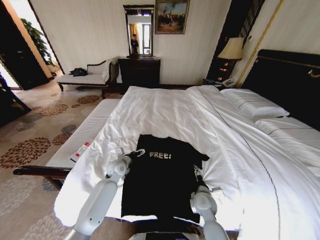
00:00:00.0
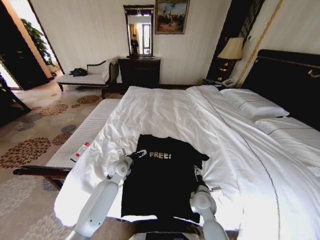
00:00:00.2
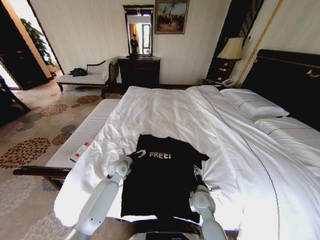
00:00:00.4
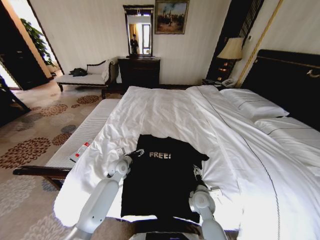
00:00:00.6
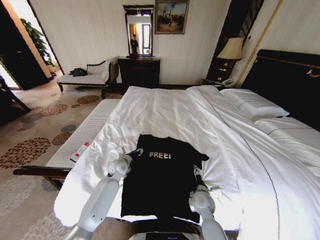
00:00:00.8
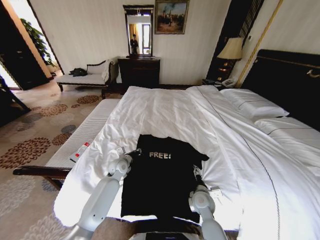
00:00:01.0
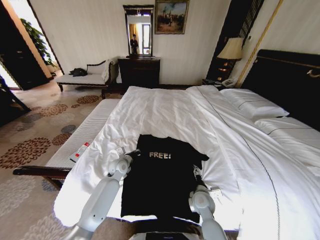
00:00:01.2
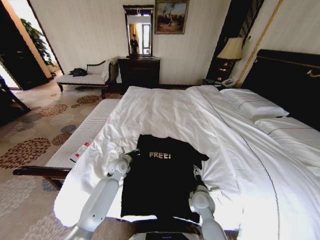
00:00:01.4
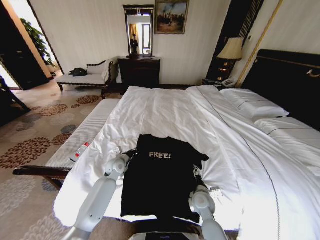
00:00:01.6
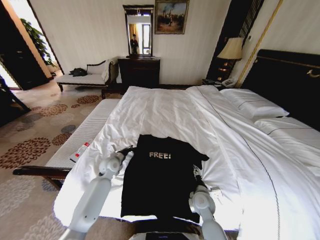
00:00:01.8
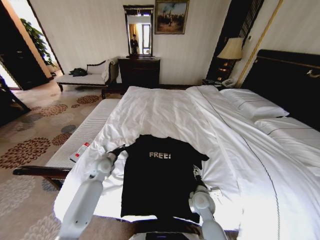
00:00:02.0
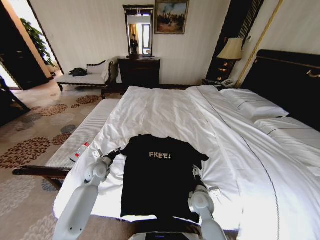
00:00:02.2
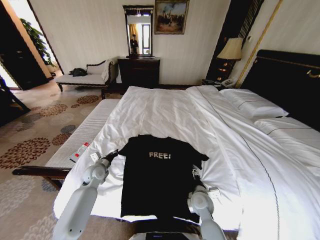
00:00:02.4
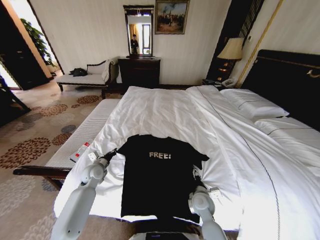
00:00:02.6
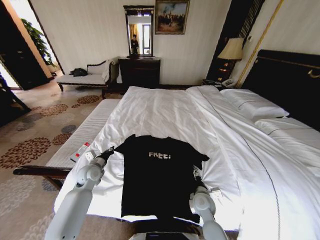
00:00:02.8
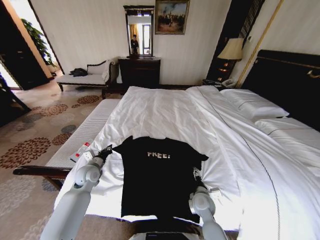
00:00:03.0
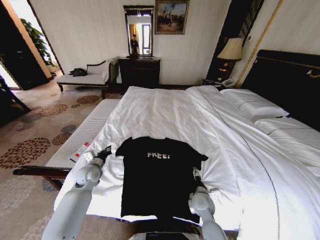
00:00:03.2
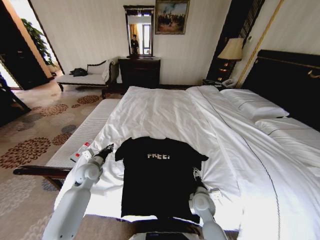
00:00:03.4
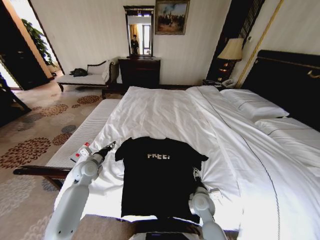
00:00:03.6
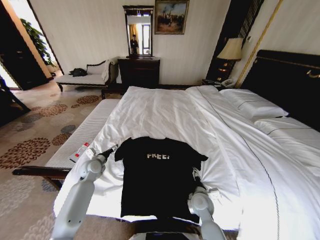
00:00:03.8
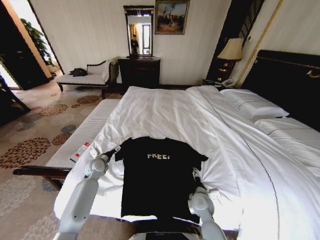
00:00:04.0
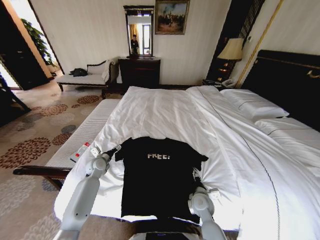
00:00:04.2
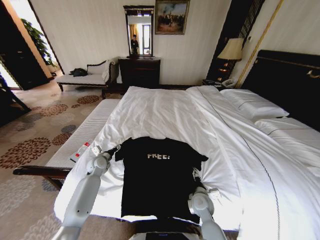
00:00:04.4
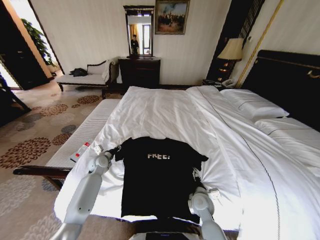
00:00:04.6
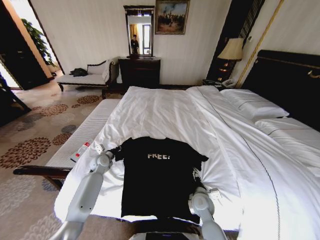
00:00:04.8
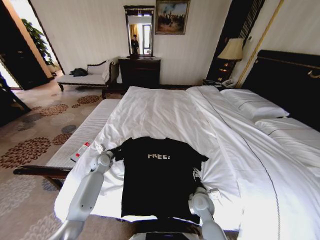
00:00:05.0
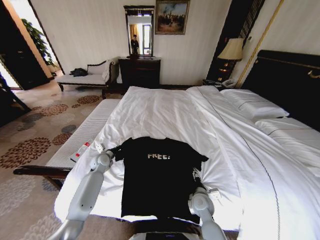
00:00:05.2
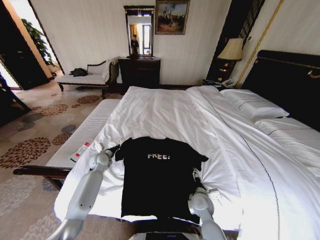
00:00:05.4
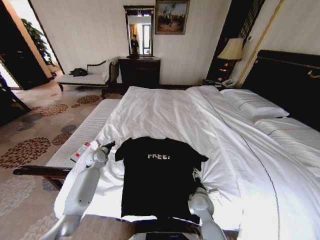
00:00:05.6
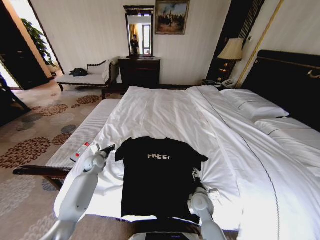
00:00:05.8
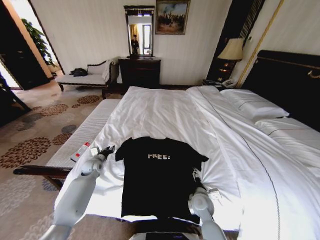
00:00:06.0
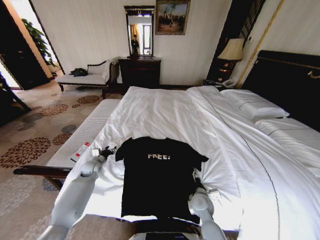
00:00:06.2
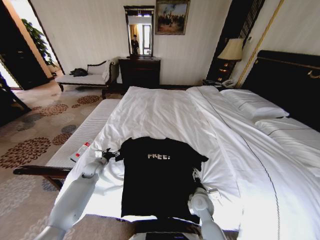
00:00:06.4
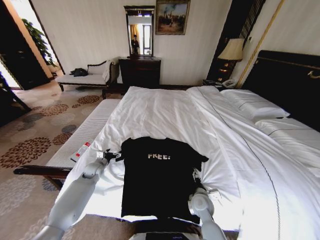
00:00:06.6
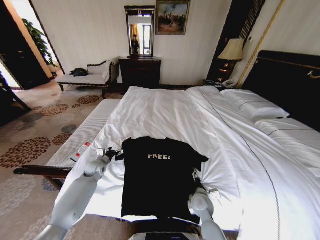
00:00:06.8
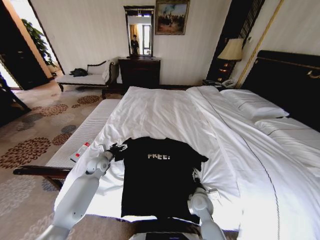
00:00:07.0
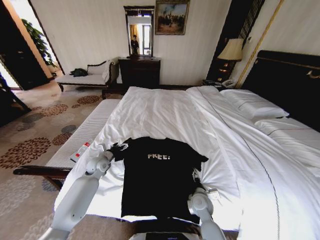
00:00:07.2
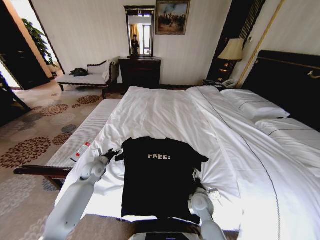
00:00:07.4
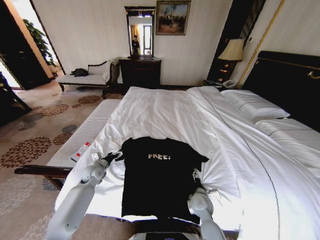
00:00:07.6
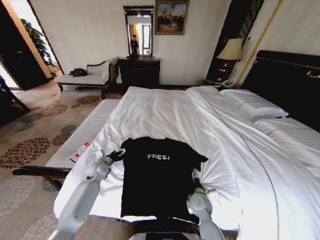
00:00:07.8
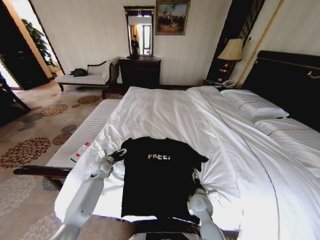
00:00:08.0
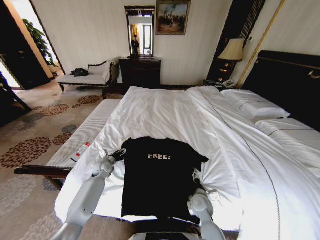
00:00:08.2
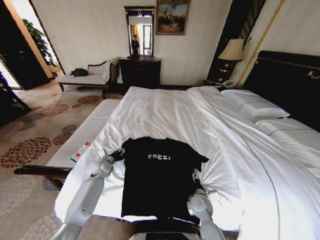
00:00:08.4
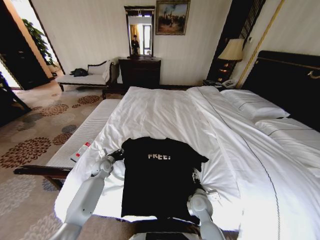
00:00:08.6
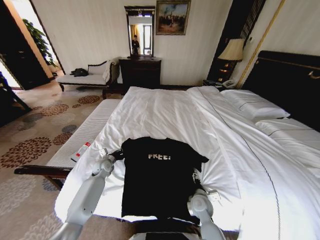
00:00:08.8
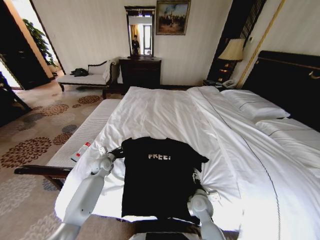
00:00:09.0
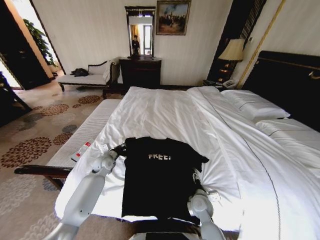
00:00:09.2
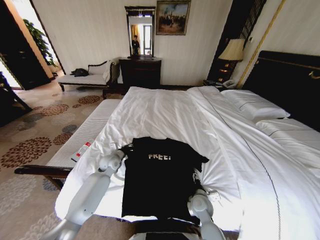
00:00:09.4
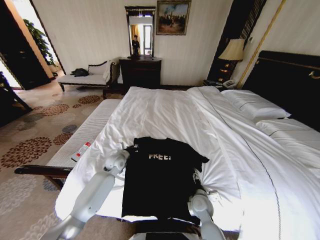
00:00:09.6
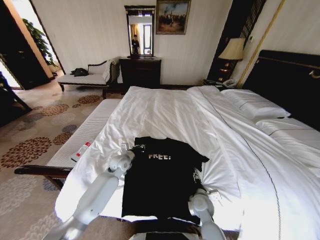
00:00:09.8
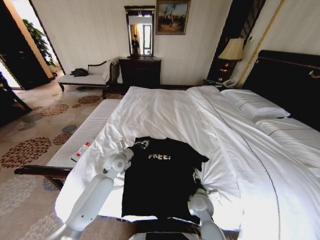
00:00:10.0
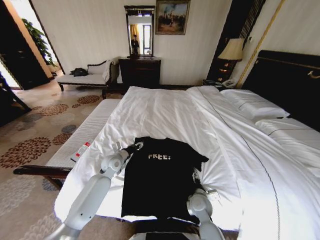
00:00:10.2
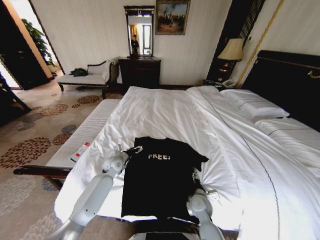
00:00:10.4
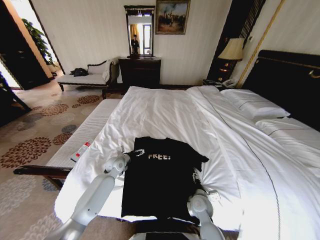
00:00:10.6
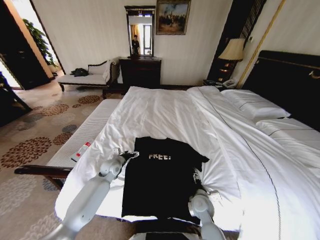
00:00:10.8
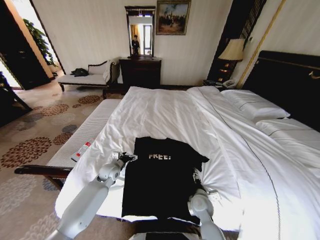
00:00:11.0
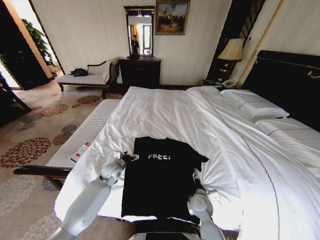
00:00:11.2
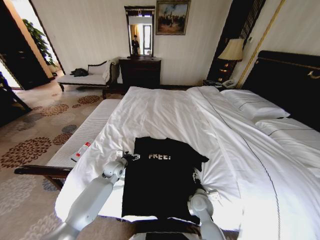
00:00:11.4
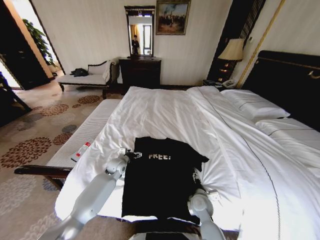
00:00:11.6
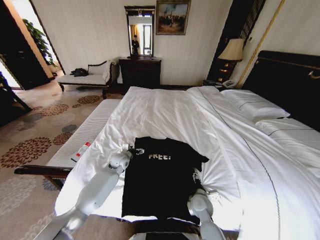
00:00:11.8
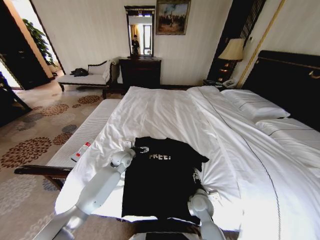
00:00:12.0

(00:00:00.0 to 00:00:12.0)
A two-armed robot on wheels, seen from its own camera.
Task of the whole recording: Fold the clothes on the bed.
00:00:00.0 - 00:00:01.6: The left gripper closes up.
00:00:01.6 - 00:00:03.0: The left gripper travels to the left and backward by approximately 10 cm.
00:00:03.0 - 00:00:04.4: The left gripper travels forward by approximately 5 cm, and opens up.
00:00:04.4 - 00:00:06.0: The left gripper closes and opens again.
00:00:06.0 - 00:00:07.6: The left gripper opens up.
00:00:07.6 - 00:00:09.0: The left gripper moves about 5 cm, and closes its fingers.
00:00:09.0 - 00:00:10.4: The left gripper heads to the right, covering approximately 5 cm, and opens its fingers.
00:00:10.4 - 00:00:12.0: The left gripper ends up some 5 cm from where it was.

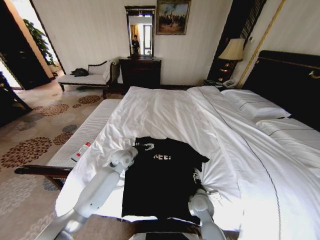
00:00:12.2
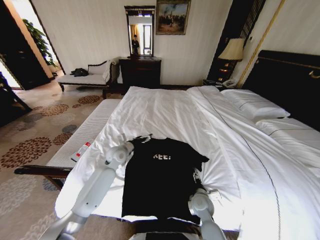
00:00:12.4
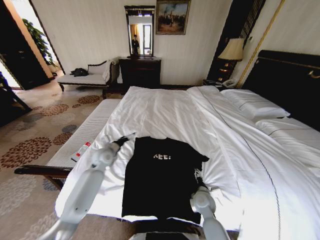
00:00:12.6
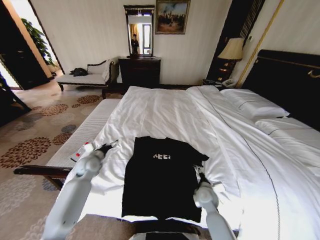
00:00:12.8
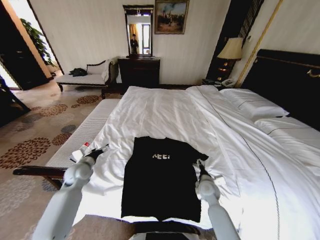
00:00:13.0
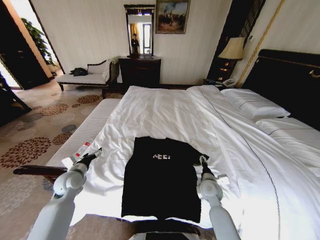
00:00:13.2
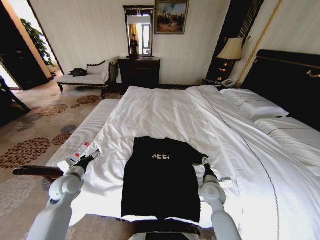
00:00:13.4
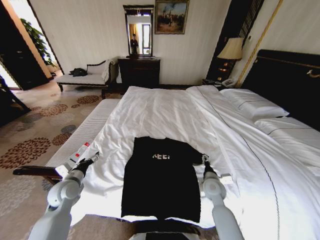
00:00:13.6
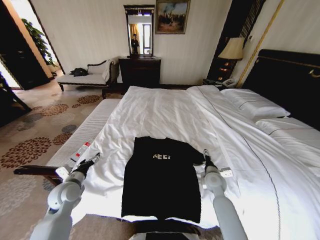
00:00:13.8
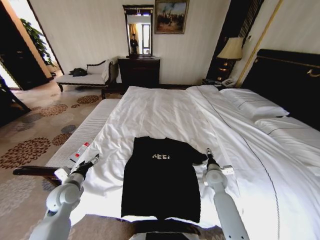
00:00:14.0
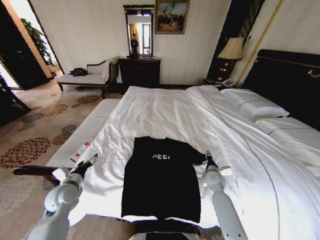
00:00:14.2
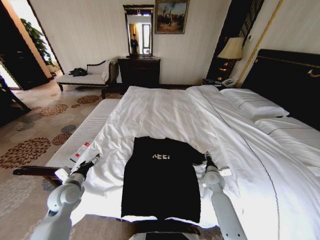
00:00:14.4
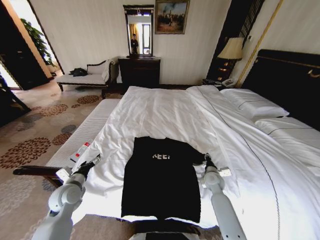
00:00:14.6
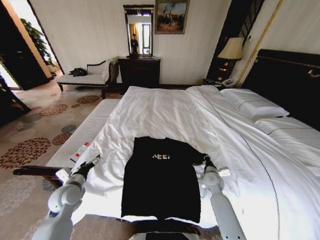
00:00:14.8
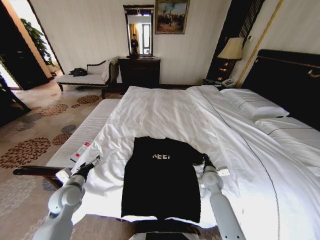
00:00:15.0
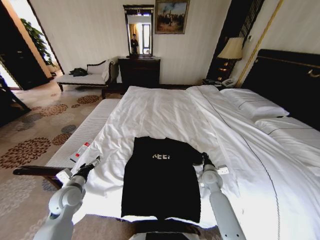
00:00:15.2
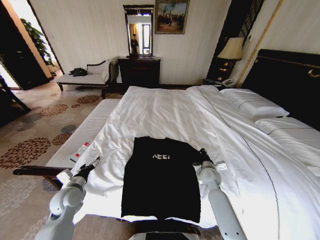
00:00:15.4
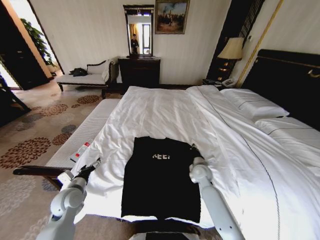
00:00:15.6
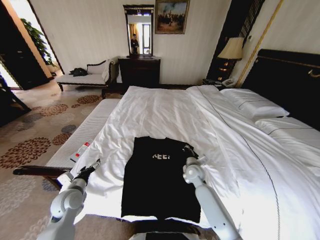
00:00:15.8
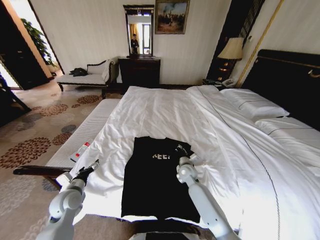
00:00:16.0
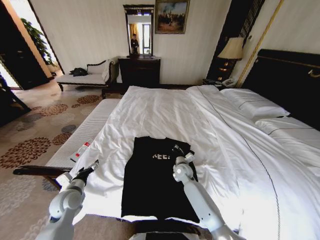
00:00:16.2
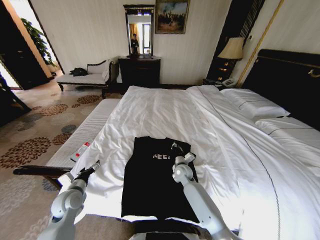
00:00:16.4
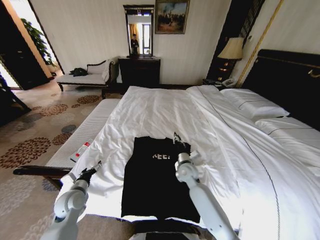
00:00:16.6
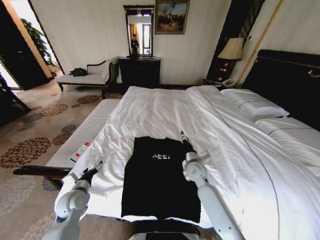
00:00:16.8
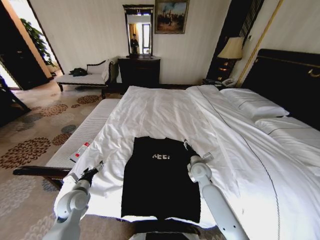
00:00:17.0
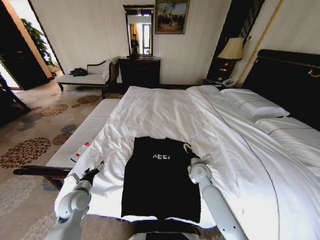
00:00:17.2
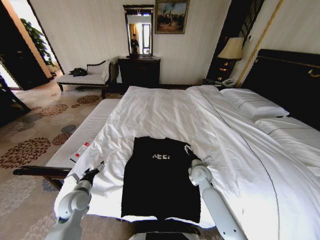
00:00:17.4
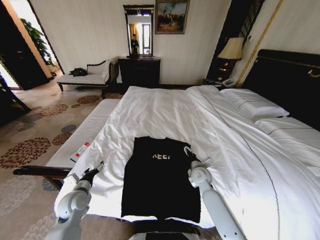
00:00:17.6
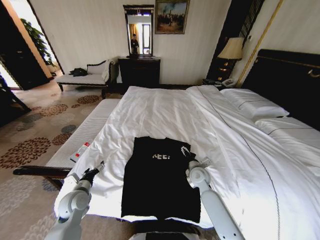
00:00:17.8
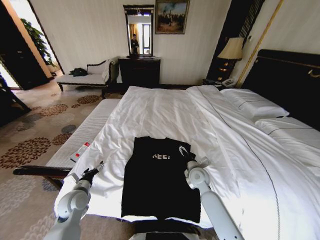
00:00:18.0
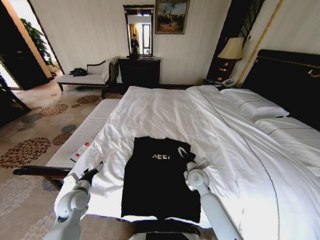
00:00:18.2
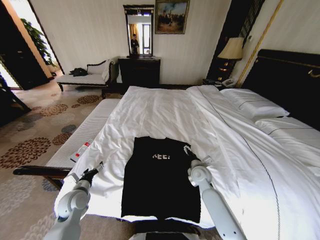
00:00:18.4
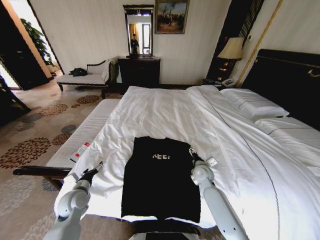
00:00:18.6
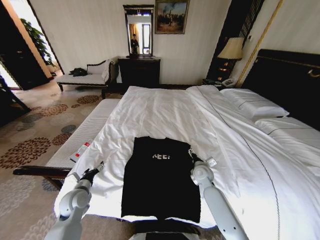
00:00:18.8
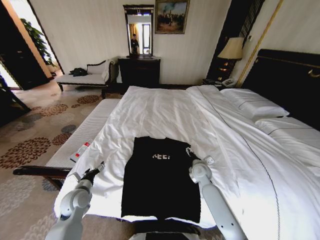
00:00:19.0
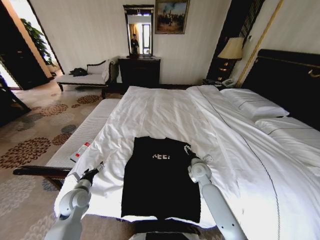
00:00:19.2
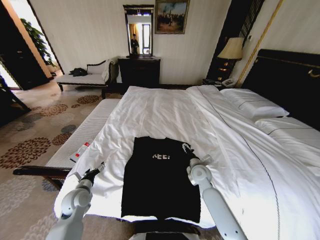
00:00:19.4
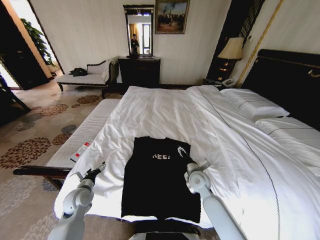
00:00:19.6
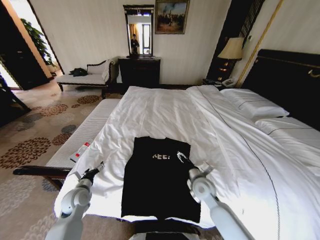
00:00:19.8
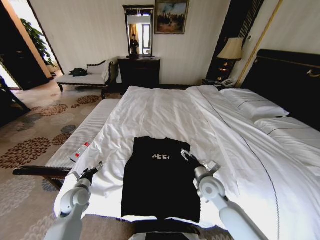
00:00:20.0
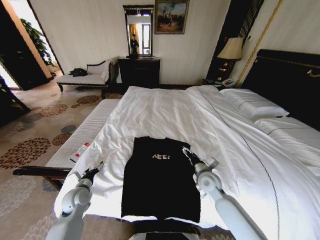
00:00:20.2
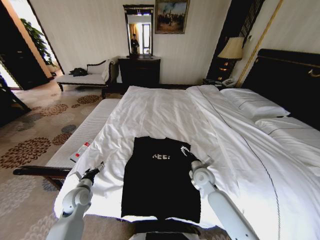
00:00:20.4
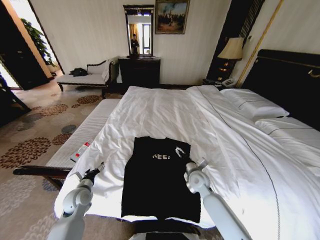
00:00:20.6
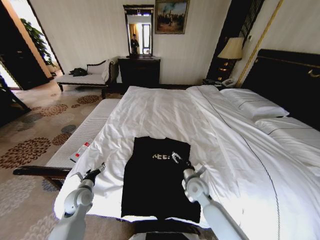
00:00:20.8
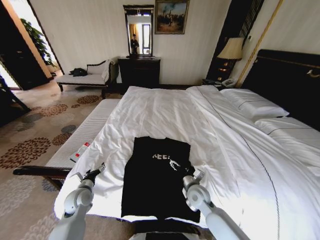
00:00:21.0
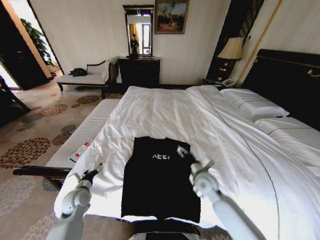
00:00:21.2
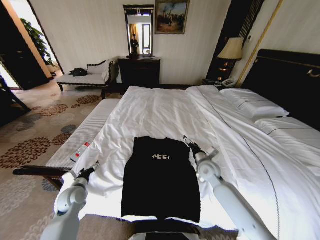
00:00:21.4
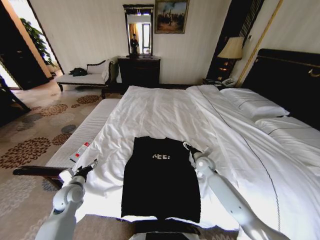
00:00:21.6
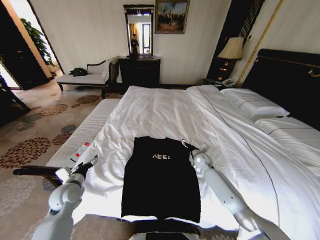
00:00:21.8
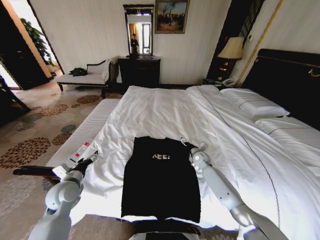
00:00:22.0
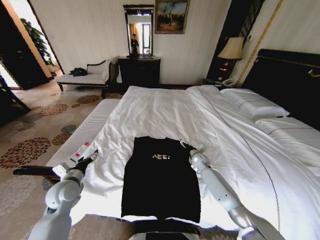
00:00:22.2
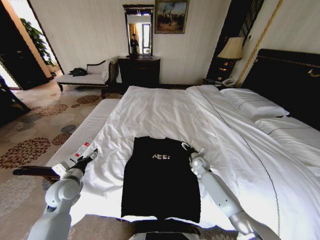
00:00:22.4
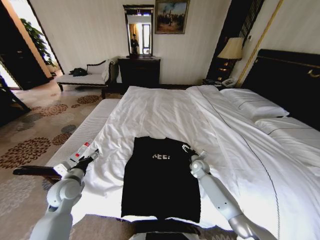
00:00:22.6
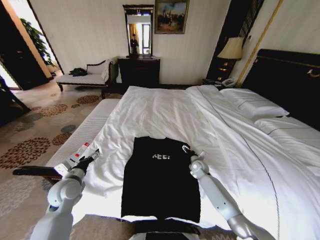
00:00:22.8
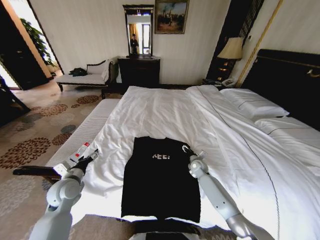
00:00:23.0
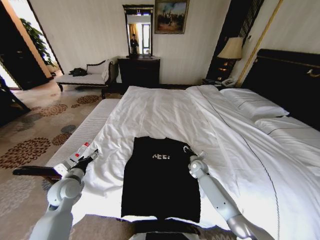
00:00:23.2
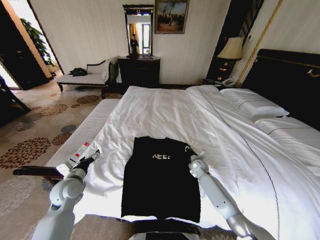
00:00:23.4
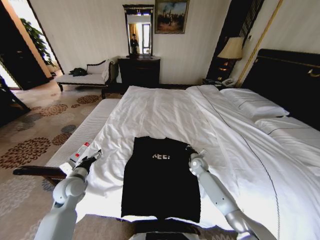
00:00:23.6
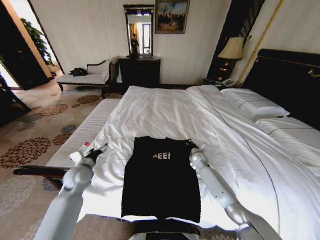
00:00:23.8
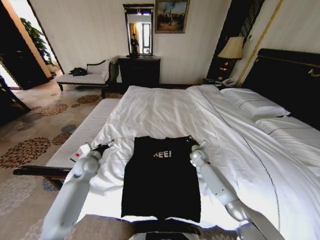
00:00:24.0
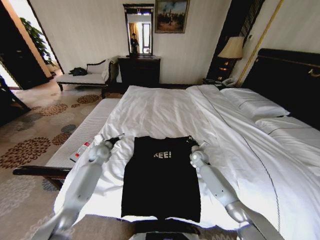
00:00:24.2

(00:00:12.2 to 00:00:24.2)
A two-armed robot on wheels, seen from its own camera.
Task of the whole recording: Fold the clothes on the bed.
00:00:12.2 - 00:00:13.8: The left gripper heads to the left and backward, covering roughly 25 cm. Meanwhile the right gripper shifts some 15 cm forward, to the right and upward.
00:00:13.8 - 00:00:15.2: The right gripper closes its fingers.
00:00:15.2 - 00:00:16.6: The right gripper goes some 15 cm to the left.
00:00:16.6 - 00:00:18.2: The right gripper ends up some 5 cm from where it was, and opens up.
00:00:18.2 - 00:00:19.8: The grippers make only small movements.
00:00:19.8 - 00:00:21.2: There are only small adjustments of the grippers.
00:00:21.2 - 00:00:22.6: The right gripper travels forward, downward and to the right by some 15 cm. Meanwhile the left gripper is displaced upward by approximately 10 cm.
00:00:22.6 - 00:00:24.2: The left gripper is displaced forward by some 20 cm; the right gripper moves roughly 5 cm, and closes up.
